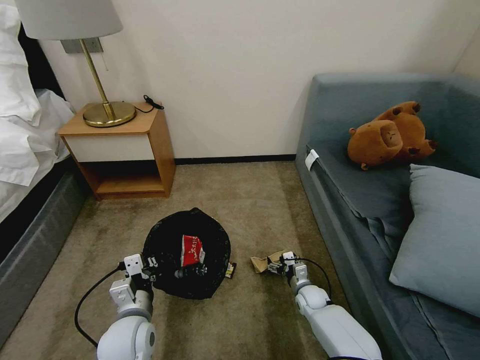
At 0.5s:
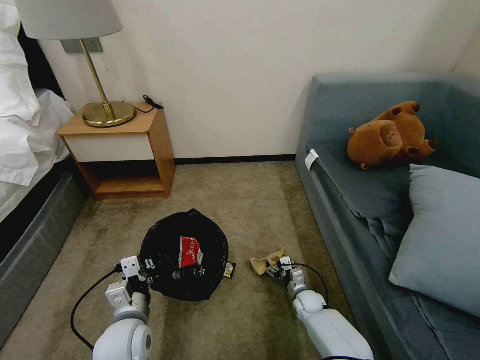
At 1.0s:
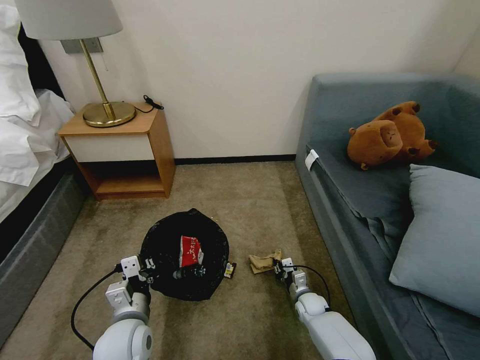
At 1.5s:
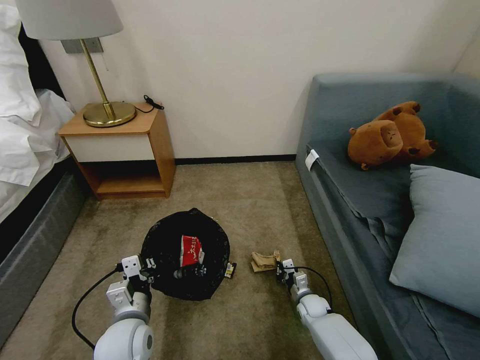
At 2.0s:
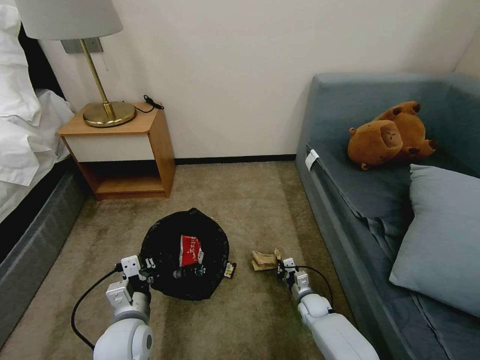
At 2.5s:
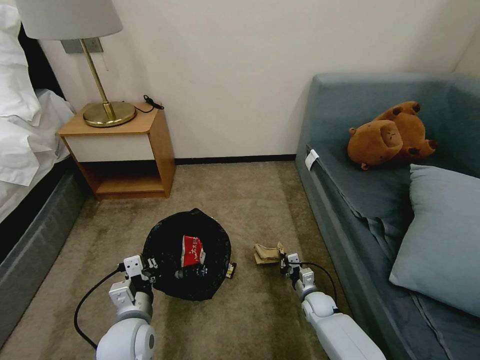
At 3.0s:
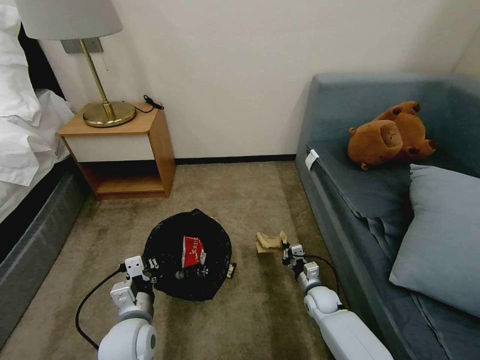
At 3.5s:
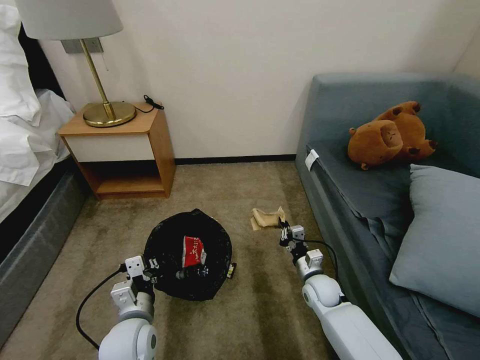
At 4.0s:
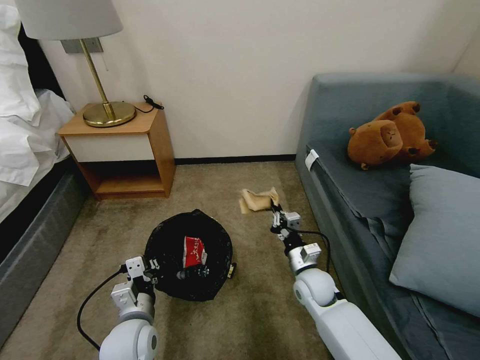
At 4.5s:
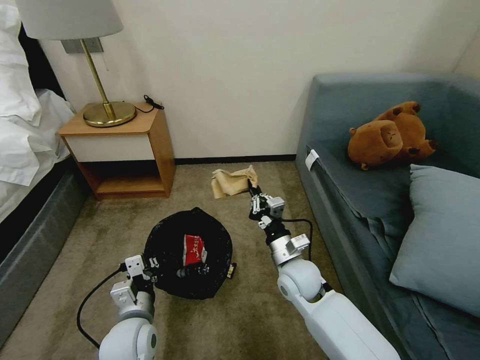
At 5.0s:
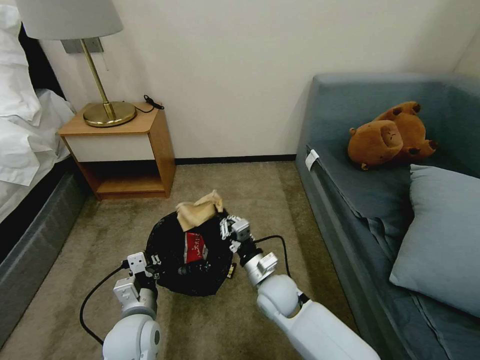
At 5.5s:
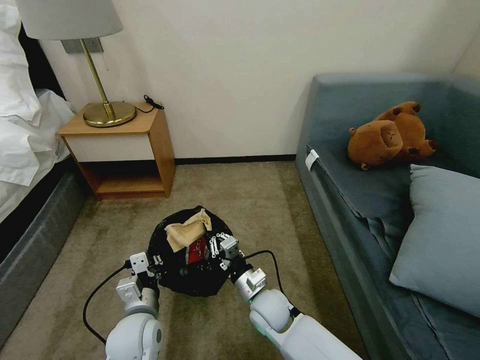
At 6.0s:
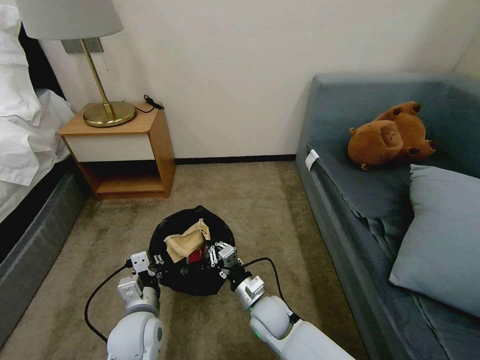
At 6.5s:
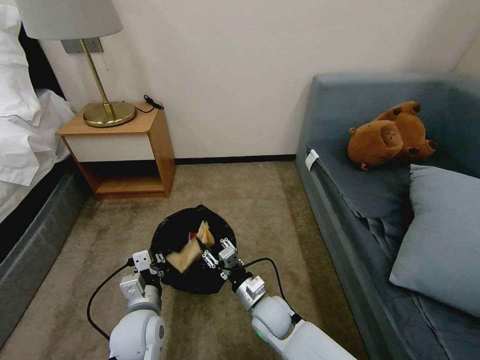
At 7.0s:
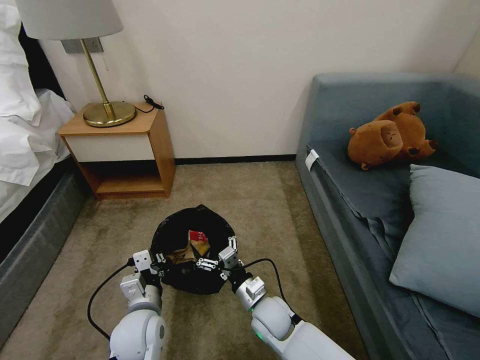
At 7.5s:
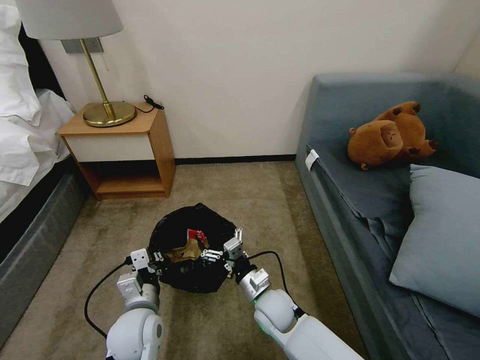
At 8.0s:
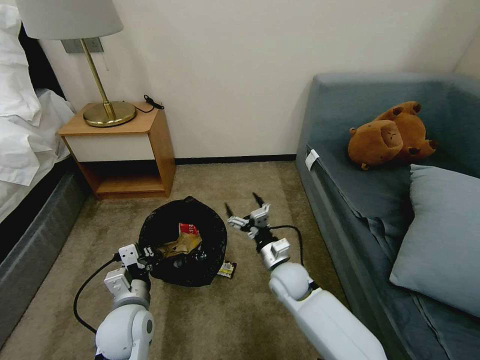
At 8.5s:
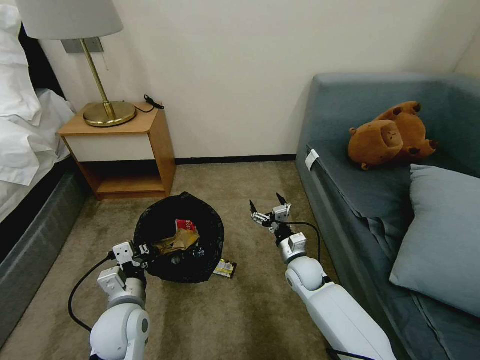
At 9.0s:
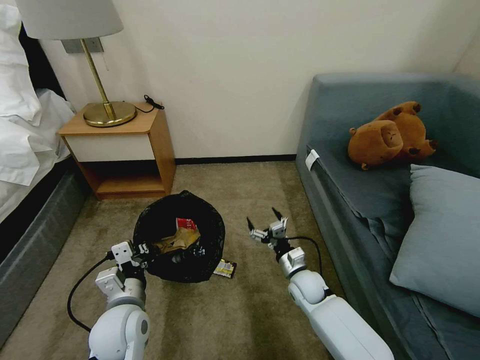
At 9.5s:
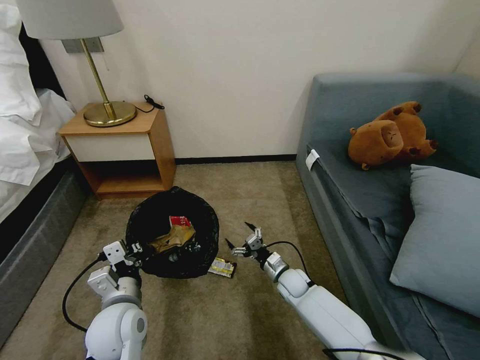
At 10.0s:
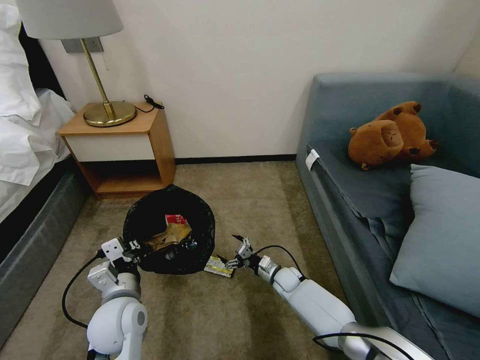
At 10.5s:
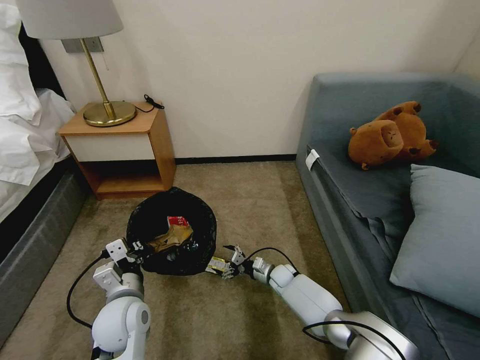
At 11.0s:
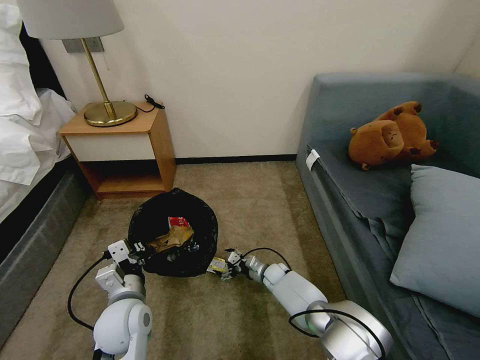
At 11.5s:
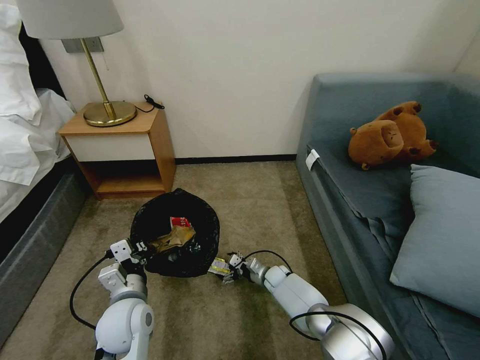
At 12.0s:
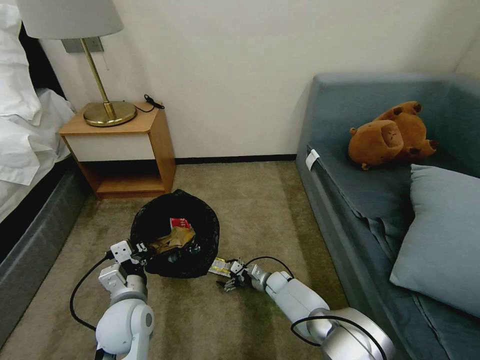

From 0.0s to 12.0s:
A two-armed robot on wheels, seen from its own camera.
Task of the whole recording: Pick up the trash bin, then pick up the garbage on the floor and place it into the trash bin.
From 0.0s to 2.0s: The right gripper closes.
From 2.0s to 4.0s: The right gripper is displaced upward by about 20 cm.
From 4.0s to 6.0s: The right gripper moves to the left and backward, approximately 15 cm.
From 6.0s to 8.0s: The right gripper shifts about 5 cm forward, and opens.
From 8.0s to 10.0s: The right gripper is displaced downward and forward by some 15 cm.

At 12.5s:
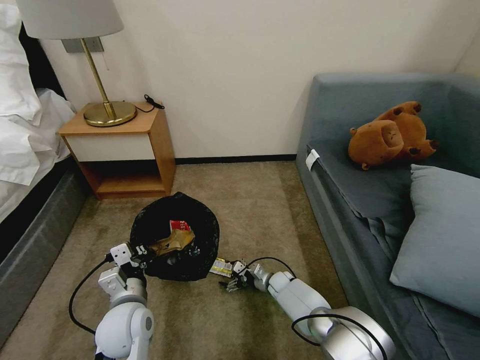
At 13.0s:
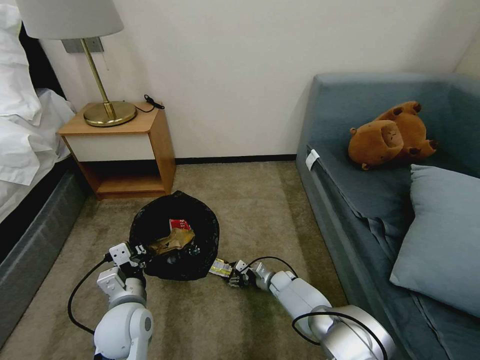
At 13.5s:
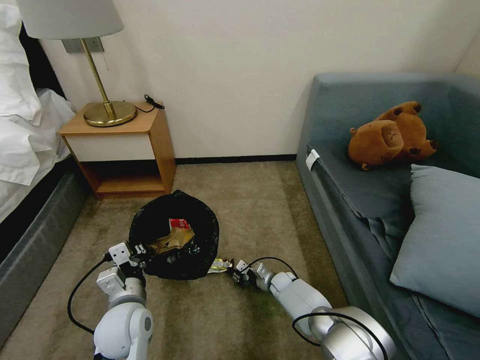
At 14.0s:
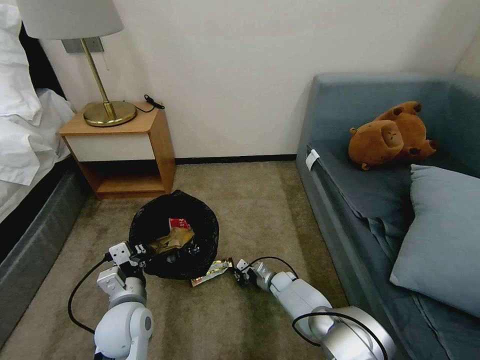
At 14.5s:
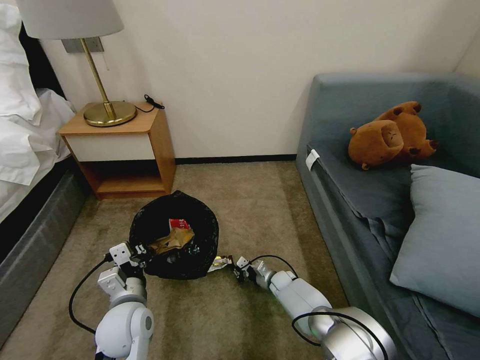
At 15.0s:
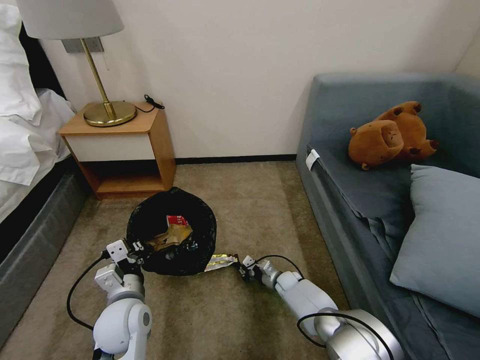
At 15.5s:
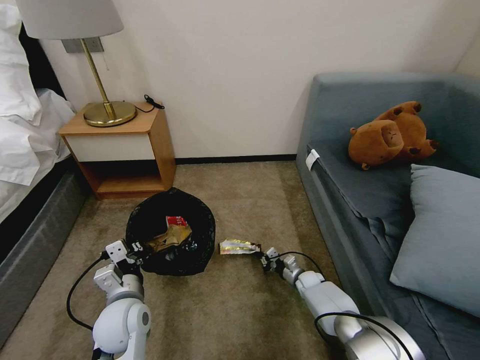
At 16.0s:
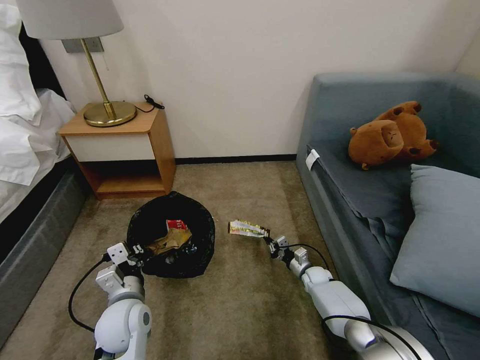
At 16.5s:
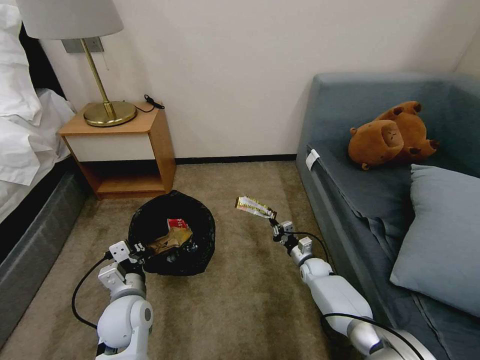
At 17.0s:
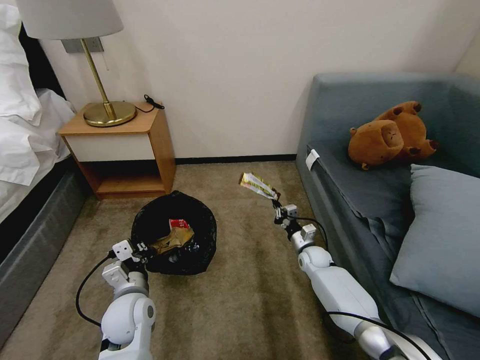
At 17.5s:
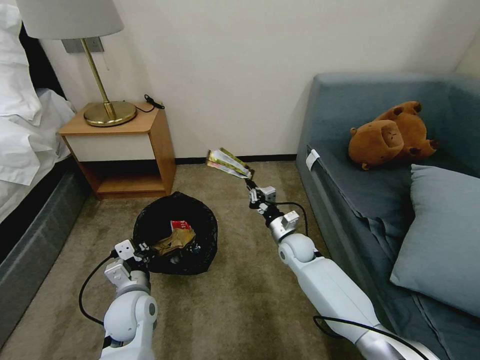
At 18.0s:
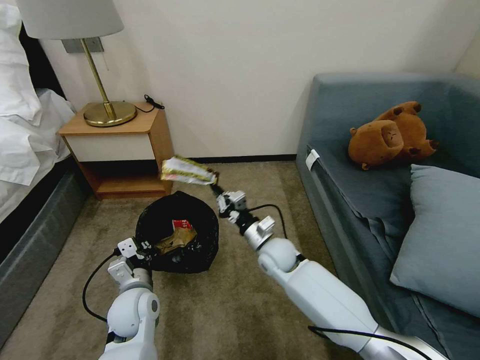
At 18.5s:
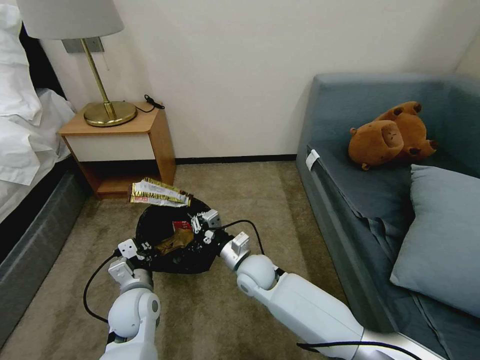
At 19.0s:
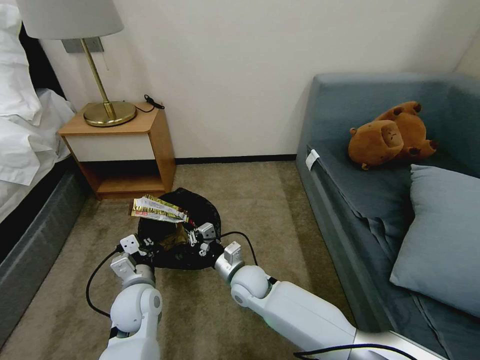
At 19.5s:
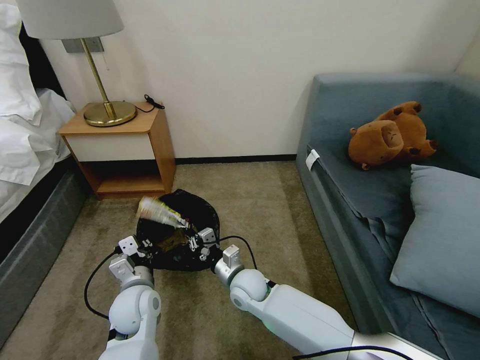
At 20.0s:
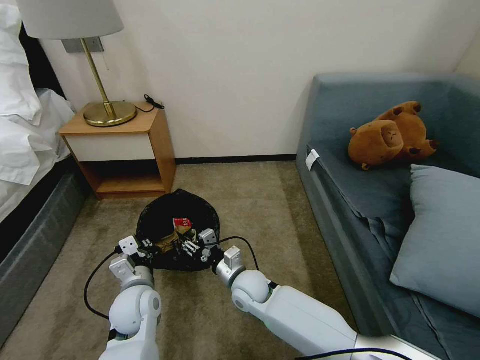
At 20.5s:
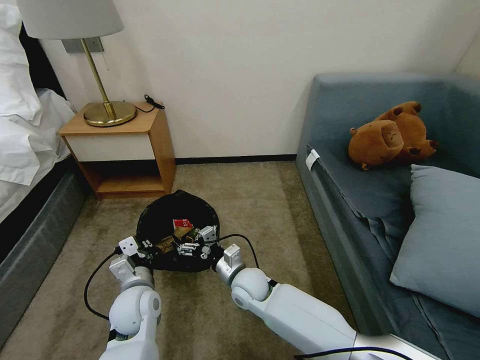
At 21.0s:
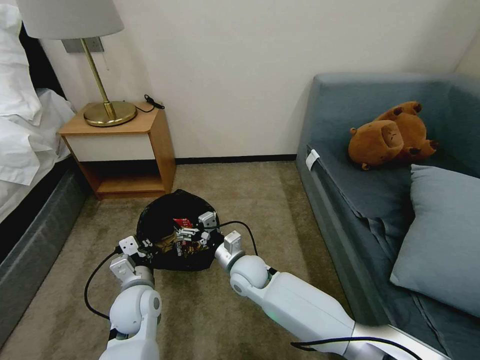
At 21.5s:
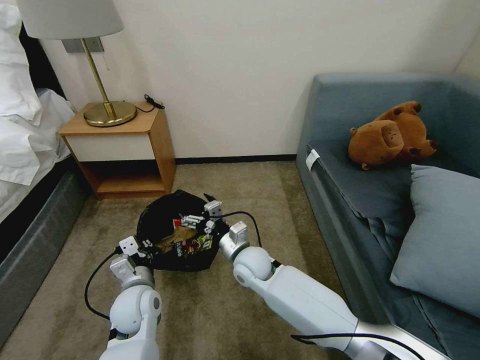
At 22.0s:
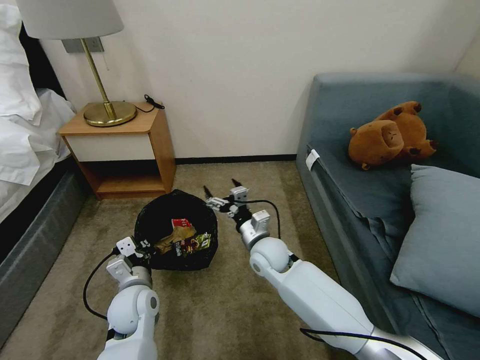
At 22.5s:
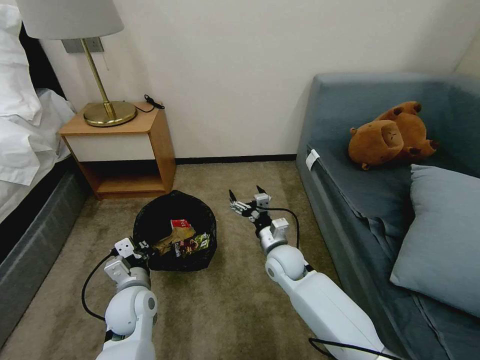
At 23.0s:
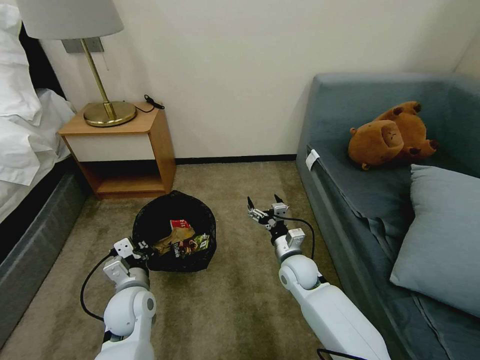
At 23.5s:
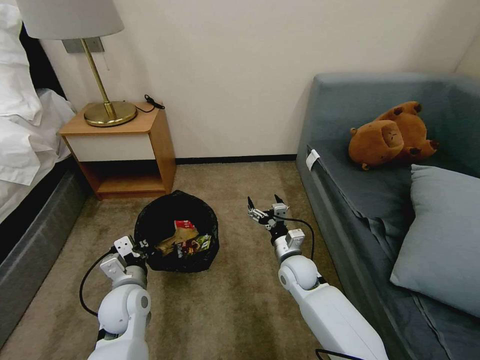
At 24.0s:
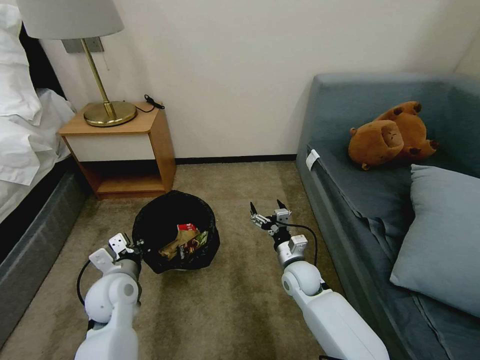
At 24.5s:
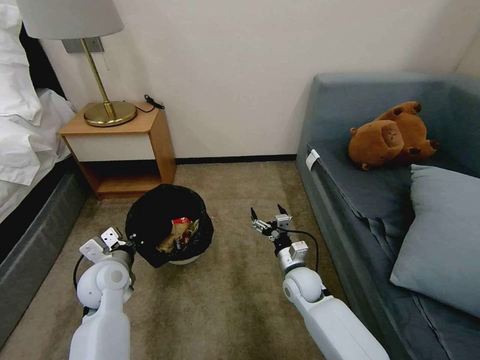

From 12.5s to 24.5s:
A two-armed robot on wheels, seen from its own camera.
Task of the whole recording: Pick up the trash bin, then pick up the garbage on the floor and place it into the trash bin.
From 12.5s to 14.5s: The right gripper closes.
From 14.5s to 16.5s: The right gripper is displaced to the right and upward by approximately 10 cm.
From 16.5s to 18.5s: The right gripper is displaced to the left and upward by some 30 cm.
From 18.5s to 20.5s: The right gripper opens up.
From 20.5s to 22.5s: The right gripper heads to the right, covering roughly 10 cm.
From 22.5s to 24.5s: The left gripper goes approximately 5 cm to the left, while the right gripper is displaced downward by some 5 cm.

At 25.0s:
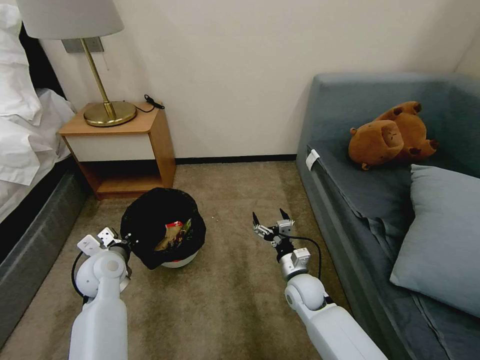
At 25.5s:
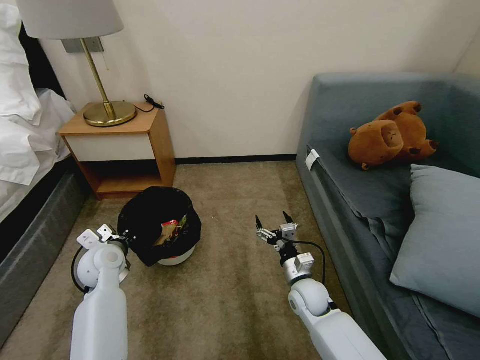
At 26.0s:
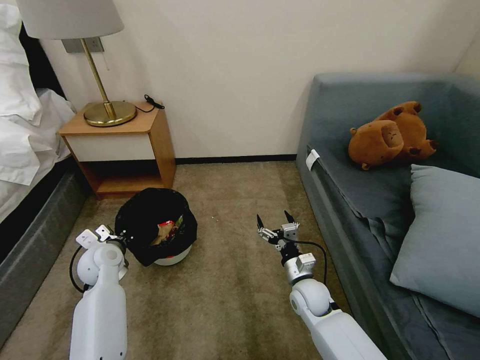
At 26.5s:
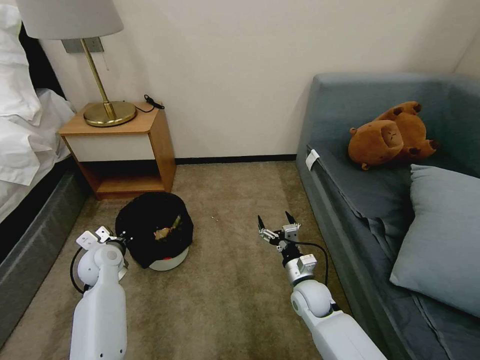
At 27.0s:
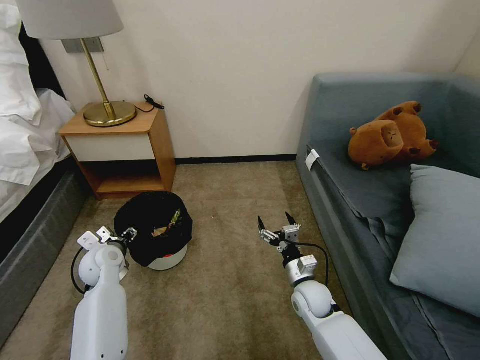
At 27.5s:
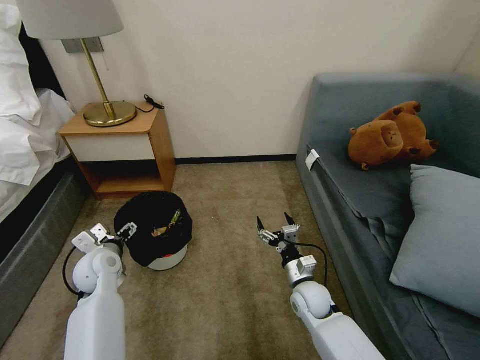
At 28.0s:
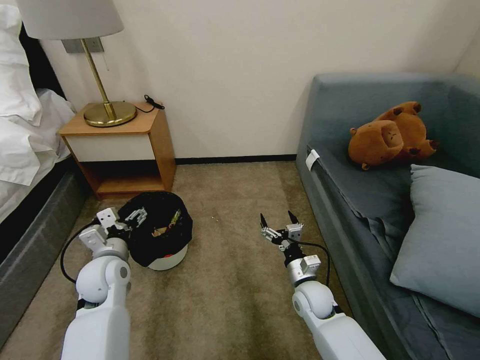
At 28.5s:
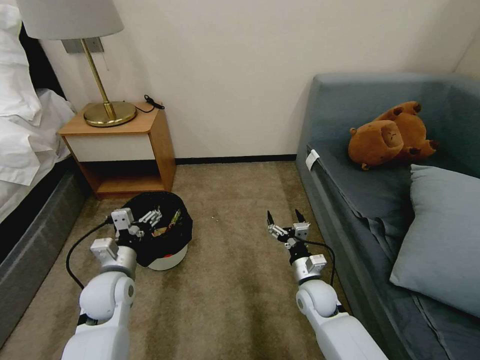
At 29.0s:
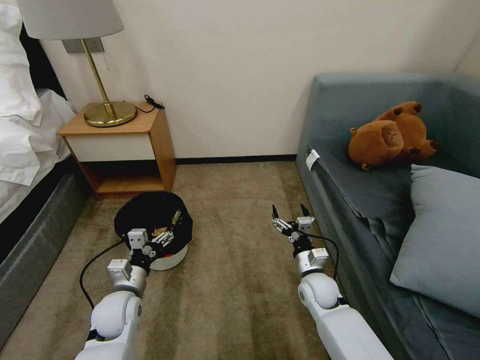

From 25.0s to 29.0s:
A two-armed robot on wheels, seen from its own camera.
Task of the whole recording: Pick up the trash bin, then pick up the garbage on the floor and place it into the trash bin.
From 25.0s to 27.0s: The left gripper changes place by roughly 5 cm, and opens up.
From 27.0s to 29.0s: The left gripper shifts approximately 10 cm backward and to the right.
